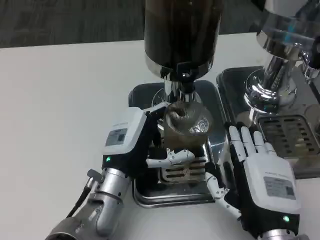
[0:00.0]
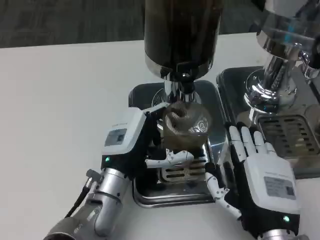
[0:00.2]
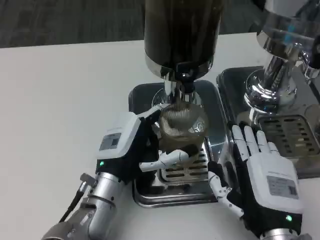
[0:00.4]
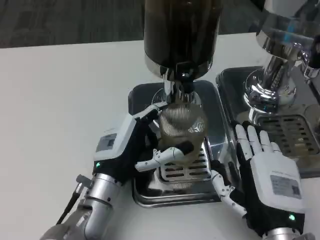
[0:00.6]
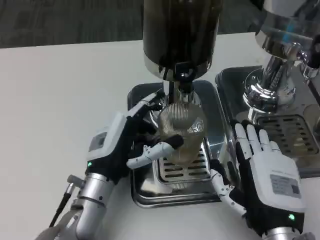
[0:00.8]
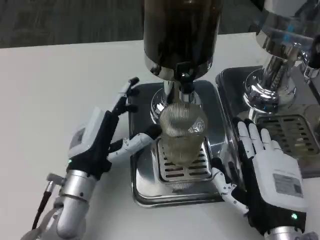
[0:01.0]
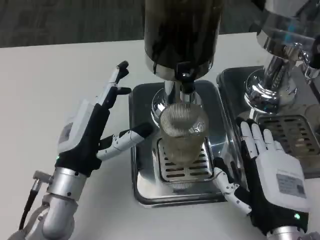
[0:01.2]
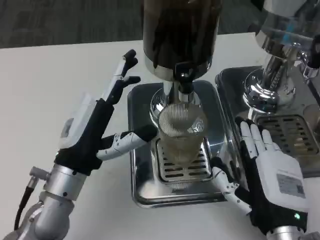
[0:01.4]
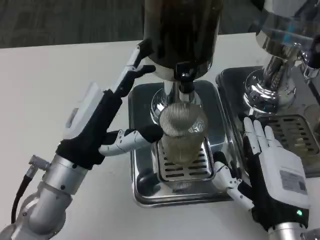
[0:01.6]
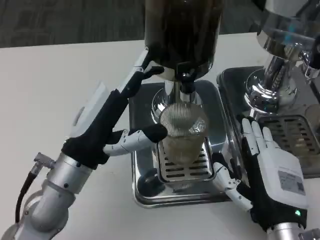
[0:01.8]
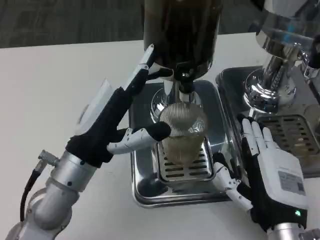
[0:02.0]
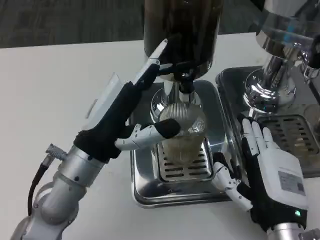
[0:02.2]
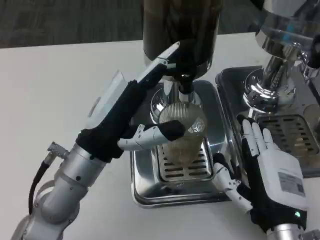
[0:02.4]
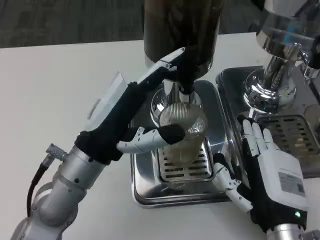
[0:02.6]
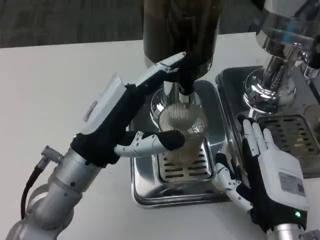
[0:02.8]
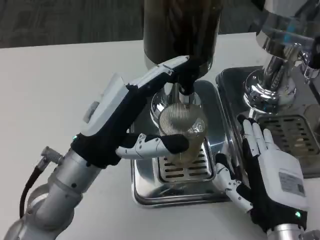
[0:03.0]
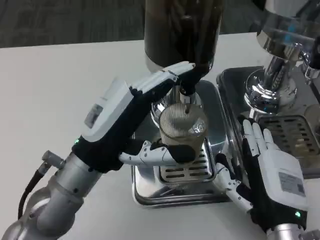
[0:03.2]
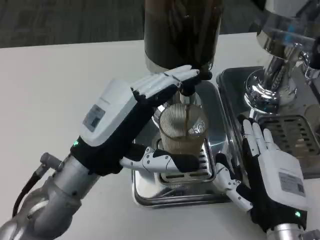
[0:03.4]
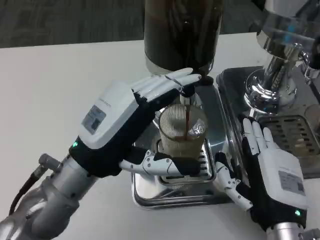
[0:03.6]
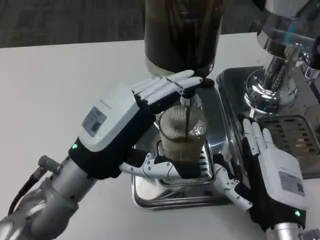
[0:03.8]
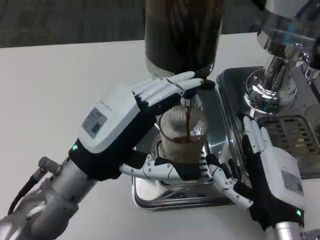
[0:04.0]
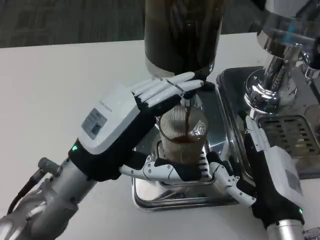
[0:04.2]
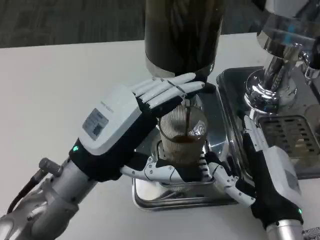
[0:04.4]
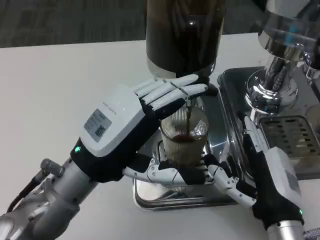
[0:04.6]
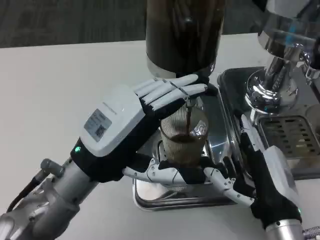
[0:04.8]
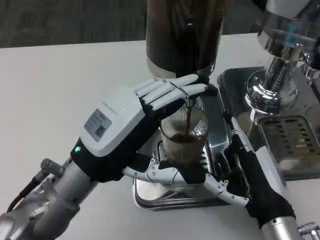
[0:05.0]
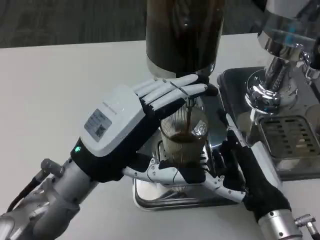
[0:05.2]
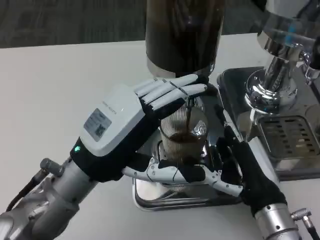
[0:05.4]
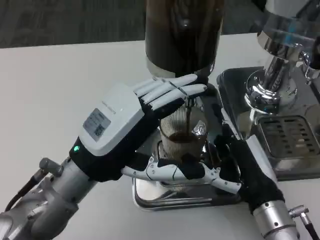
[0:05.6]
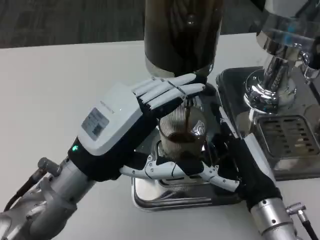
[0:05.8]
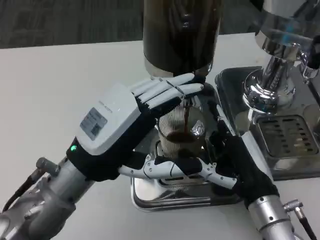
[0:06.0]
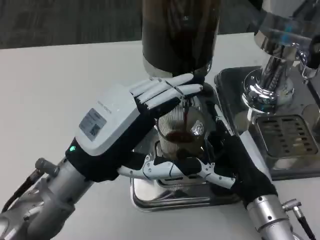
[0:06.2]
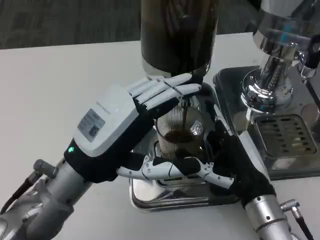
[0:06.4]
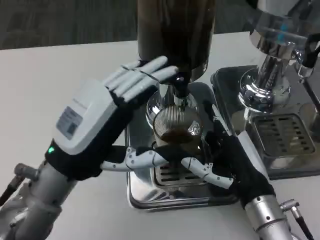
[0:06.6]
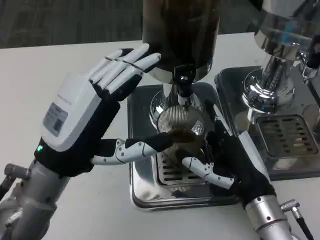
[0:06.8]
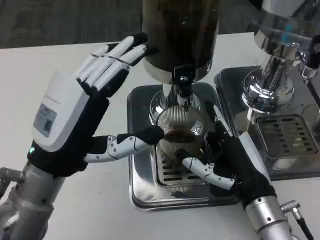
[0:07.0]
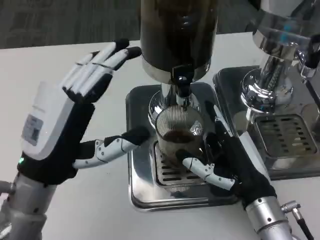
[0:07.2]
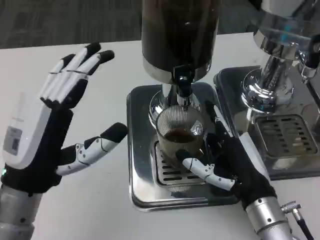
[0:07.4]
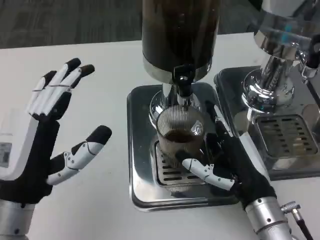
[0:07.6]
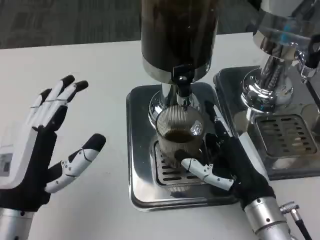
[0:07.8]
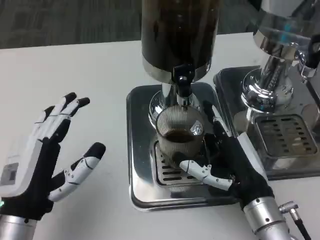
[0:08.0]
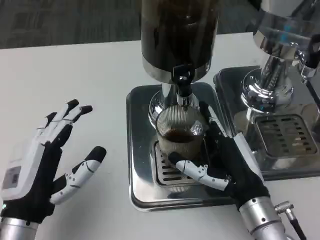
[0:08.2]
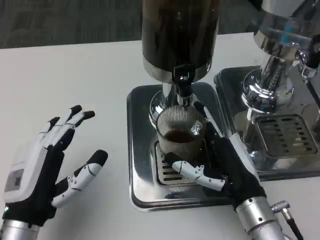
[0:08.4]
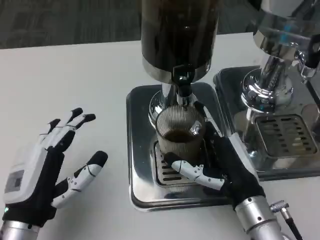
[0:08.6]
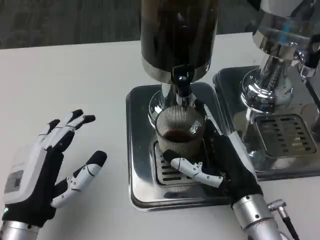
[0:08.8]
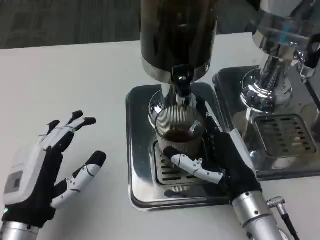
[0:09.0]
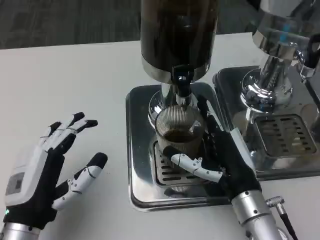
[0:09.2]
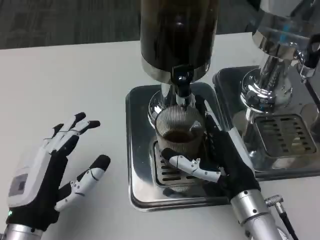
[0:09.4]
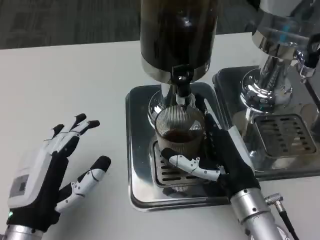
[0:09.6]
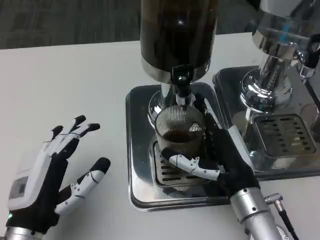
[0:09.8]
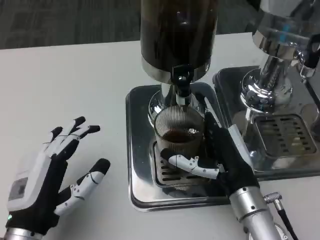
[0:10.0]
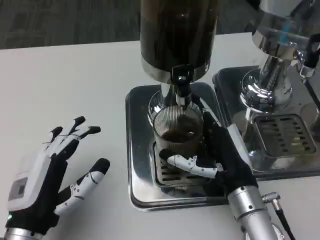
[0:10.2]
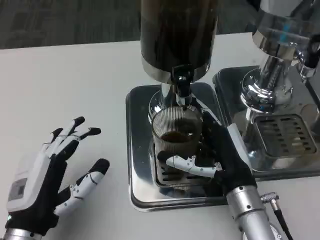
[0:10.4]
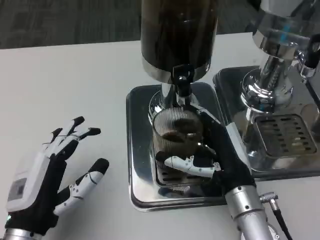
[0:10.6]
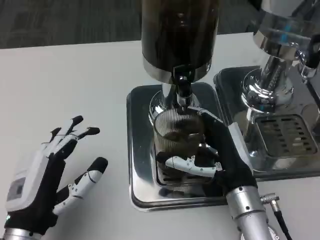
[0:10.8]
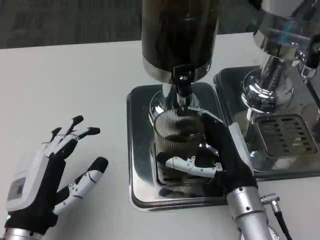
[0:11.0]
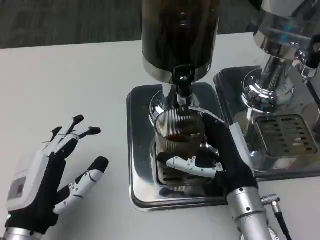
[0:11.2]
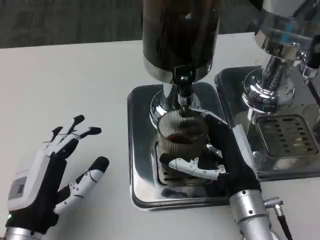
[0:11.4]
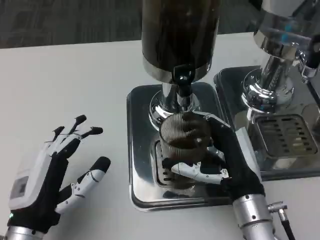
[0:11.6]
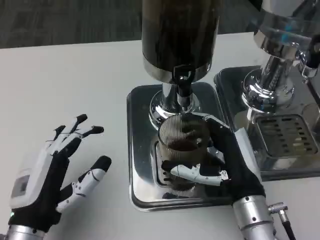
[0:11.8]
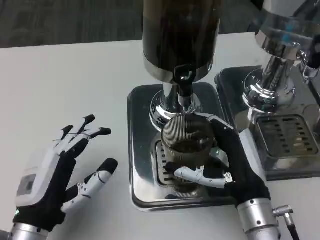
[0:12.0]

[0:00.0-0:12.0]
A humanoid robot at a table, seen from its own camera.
Task of the whole recording: Grasp the cup under the faucet to collect the drink, then remove the cup.
0:00.0 to 0:01.6: The left hand goes some 10 cm upward and to the left.
0:01.6 to 0:03.0: The hands stay close to where they were, moving slightly.
0:06.0 to 0:07.6: The left hand is displaced to the left by some 5 cm.
0:09.0 to 0:10.4: Neither hand changes place.

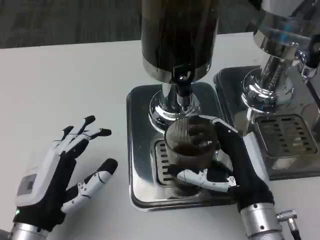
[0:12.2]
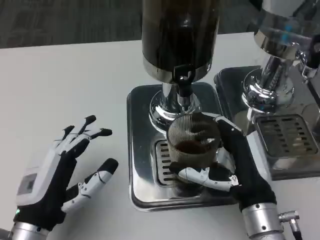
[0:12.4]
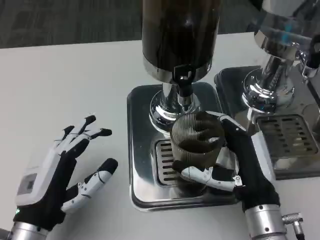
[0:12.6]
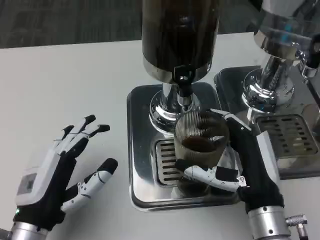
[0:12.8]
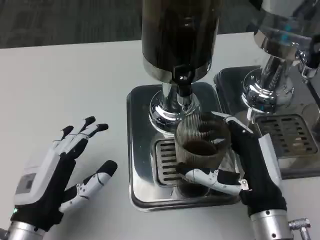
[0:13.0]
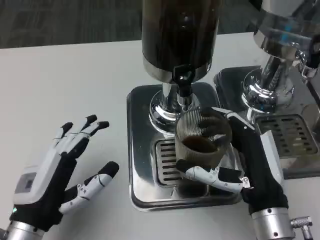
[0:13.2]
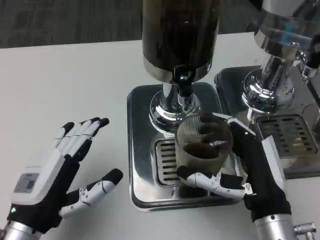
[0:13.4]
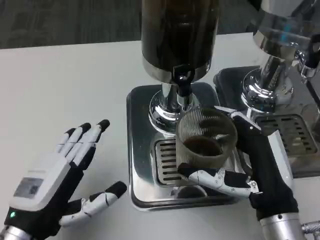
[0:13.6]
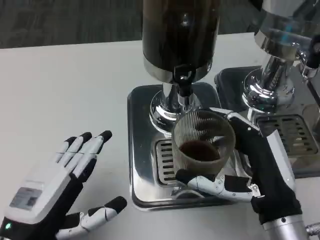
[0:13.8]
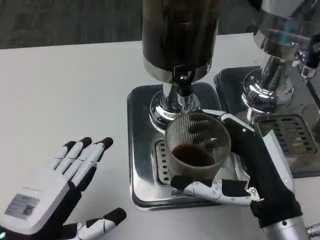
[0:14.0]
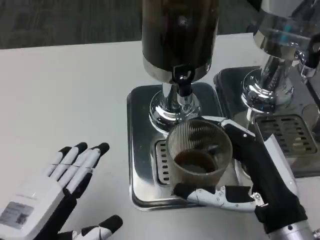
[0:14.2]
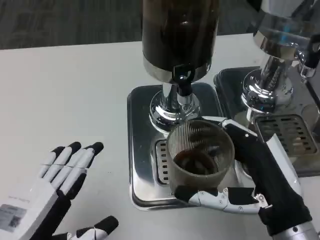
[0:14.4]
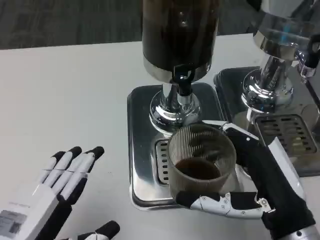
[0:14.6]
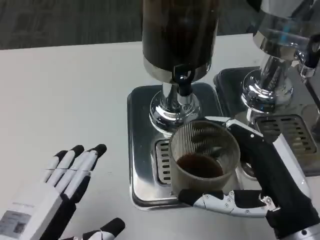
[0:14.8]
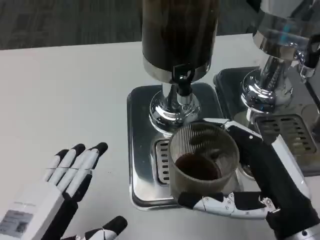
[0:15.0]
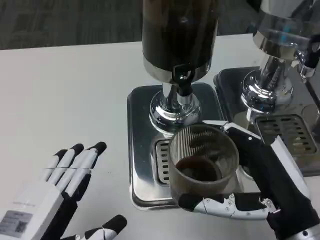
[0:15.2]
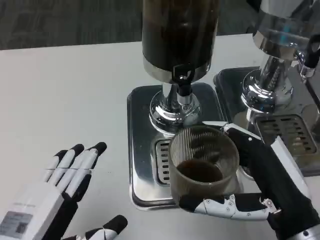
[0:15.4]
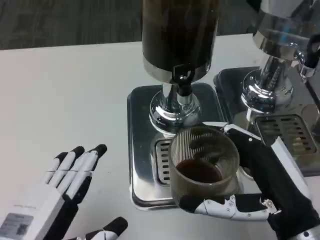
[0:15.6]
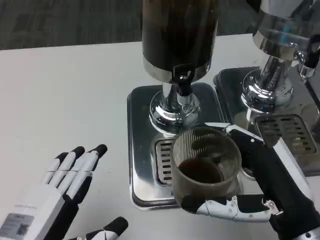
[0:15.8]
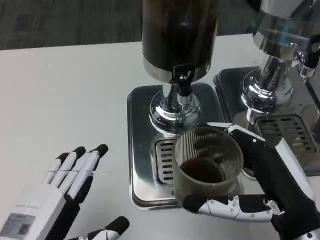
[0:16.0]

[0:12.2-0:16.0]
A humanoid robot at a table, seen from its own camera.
Task of the whole recording: Grasp the cup under the faucet to collect the drink, then remove the cup.
0:12.2 to 0:13.4: There are only small adjustments of the hands.
0:13.4 to 0:14.8: The right hand shifts by about 5 cm, while the left hand shifts approximately 5 cm backward.
0:14.8 to 0:16.0: Both hands stay put.

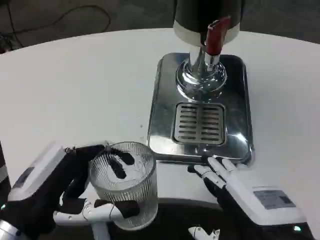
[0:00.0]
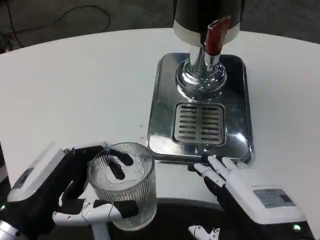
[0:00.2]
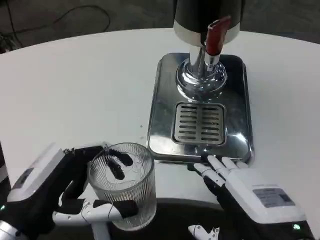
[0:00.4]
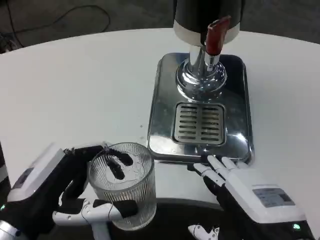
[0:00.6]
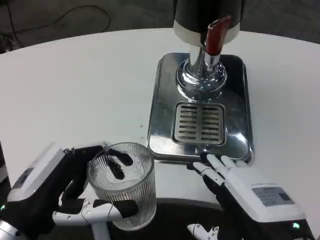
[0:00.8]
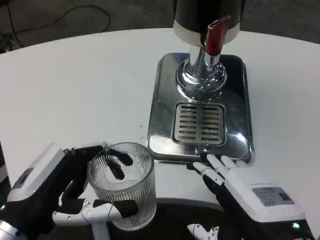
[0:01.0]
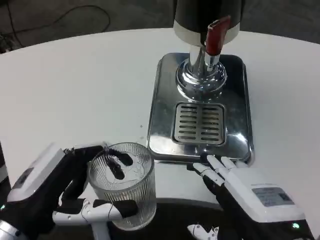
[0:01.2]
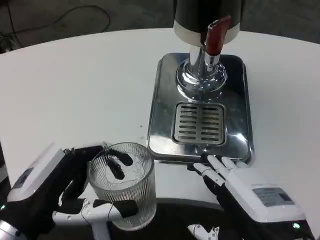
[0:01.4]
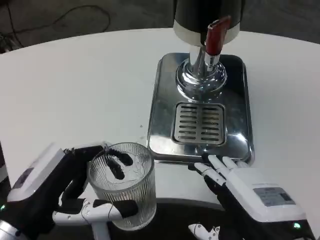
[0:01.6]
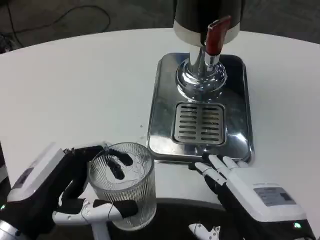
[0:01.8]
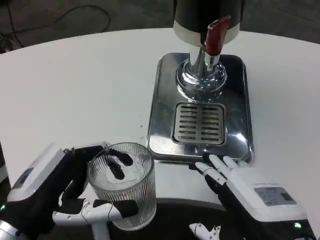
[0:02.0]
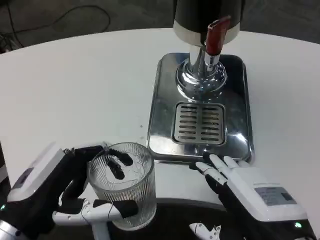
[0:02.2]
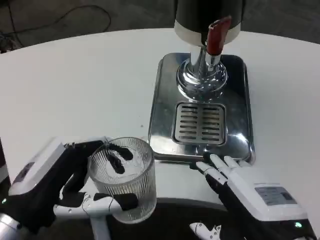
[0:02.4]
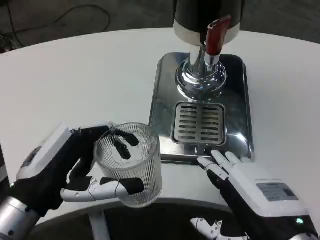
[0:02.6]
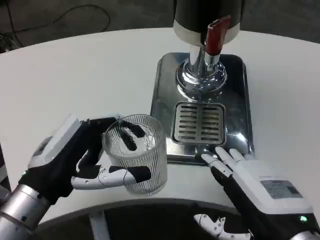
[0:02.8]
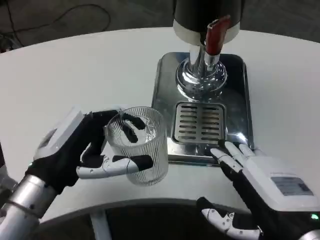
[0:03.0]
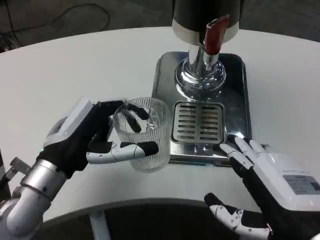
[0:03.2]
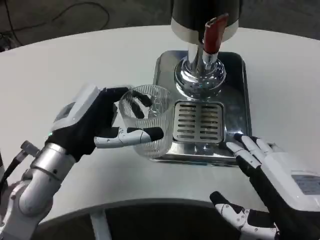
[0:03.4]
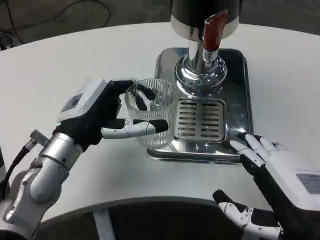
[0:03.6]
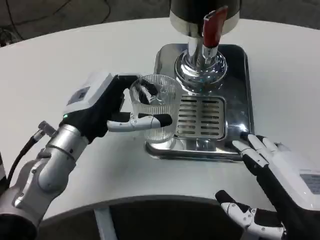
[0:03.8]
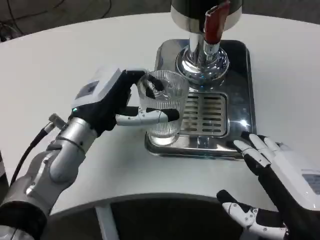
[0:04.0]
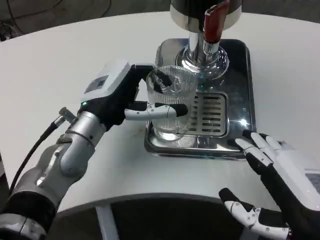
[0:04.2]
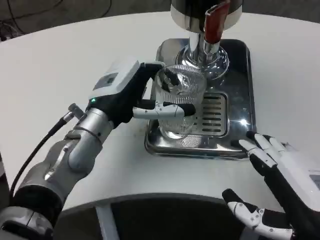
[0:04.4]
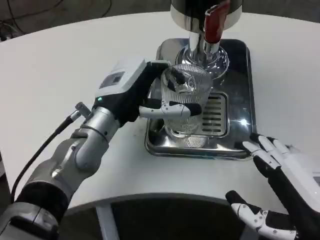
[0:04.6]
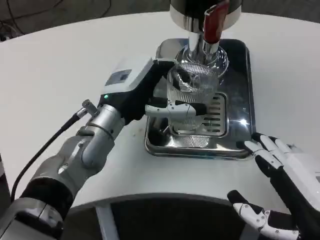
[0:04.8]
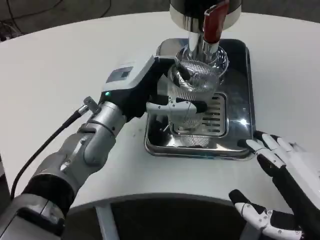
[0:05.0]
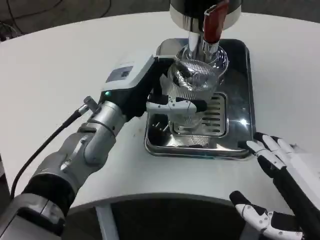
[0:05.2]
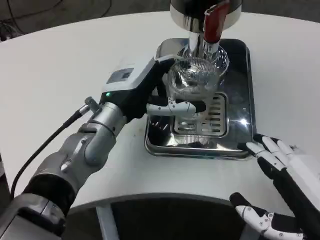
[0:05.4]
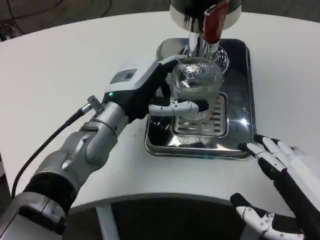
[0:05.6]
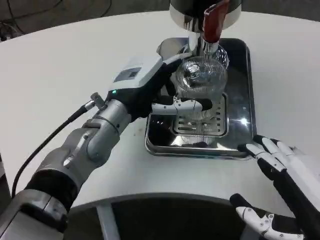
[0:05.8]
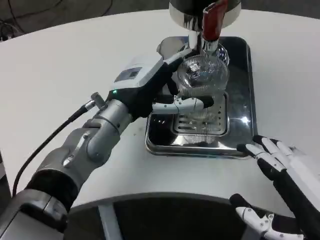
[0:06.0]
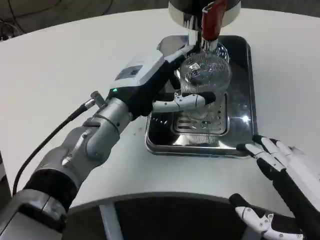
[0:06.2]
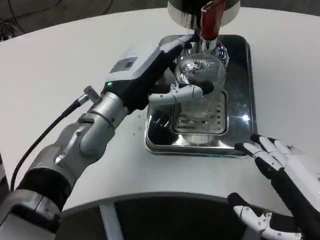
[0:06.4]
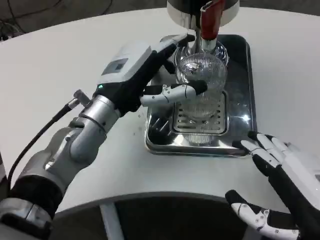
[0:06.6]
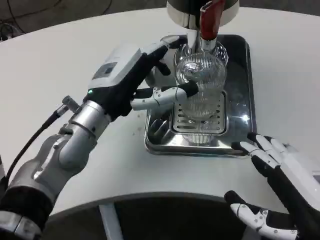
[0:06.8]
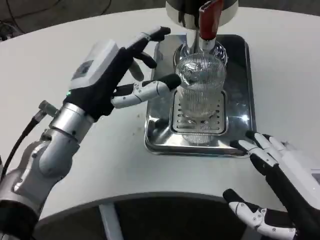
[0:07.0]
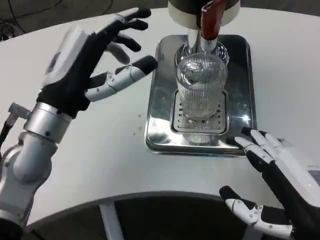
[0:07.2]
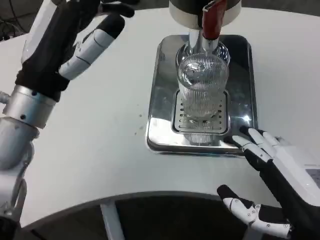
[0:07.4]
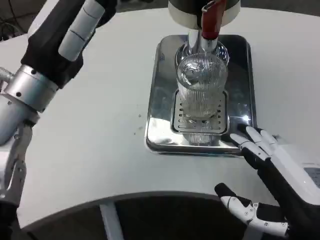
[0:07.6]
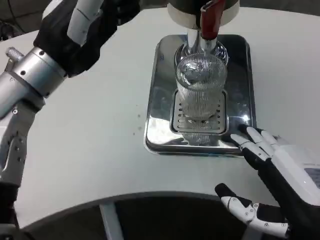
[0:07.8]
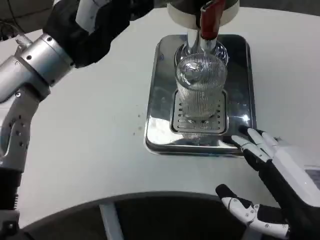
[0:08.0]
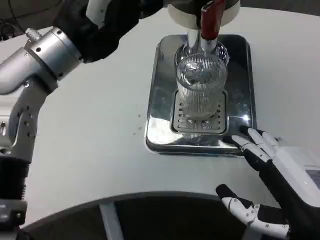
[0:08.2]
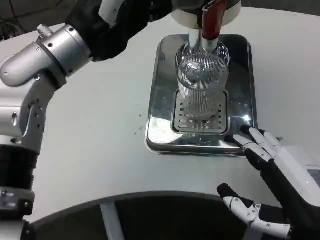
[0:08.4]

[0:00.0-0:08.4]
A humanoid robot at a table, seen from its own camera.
Task of the whole recording: Grasp the cup under the faucet to collect the drink, then remove the cup.
0:00.0 to 0:01.4: Both hands stay put.
0:02.8 to 0:04.2: The left hand is displaced forward and to the right by roughly 15 cm.
0:05.6 to 0:07.0: The left hand moves about 5 cm.
0:07.0 to 0:08.4: The left hand shifts approximately 10 cm upward.
